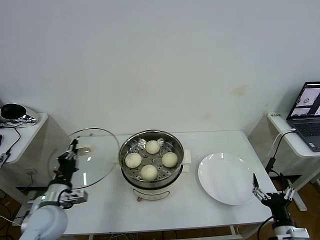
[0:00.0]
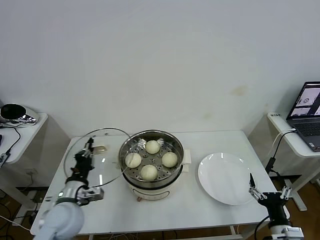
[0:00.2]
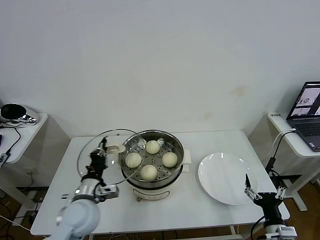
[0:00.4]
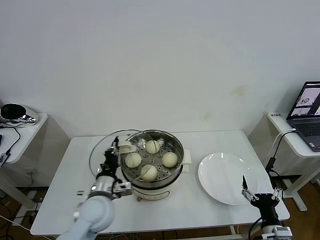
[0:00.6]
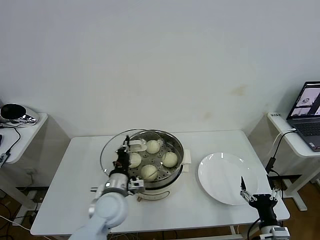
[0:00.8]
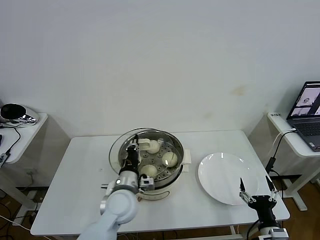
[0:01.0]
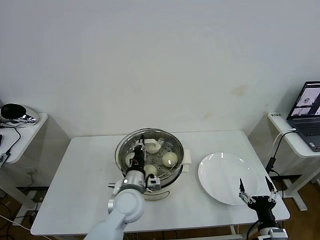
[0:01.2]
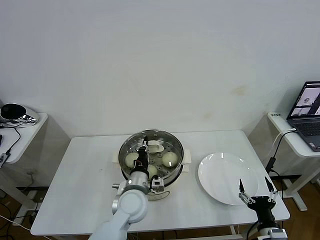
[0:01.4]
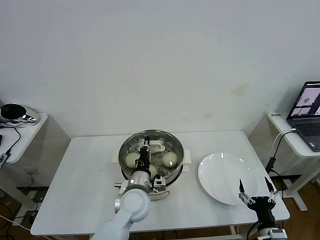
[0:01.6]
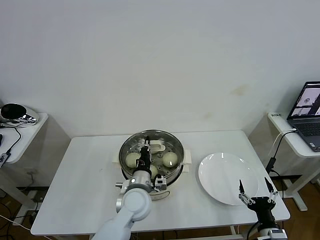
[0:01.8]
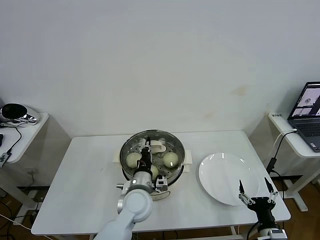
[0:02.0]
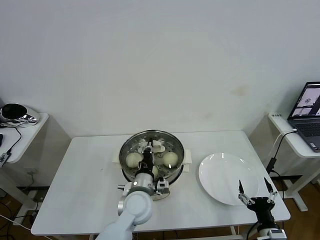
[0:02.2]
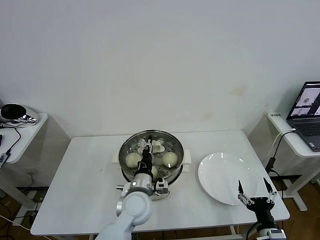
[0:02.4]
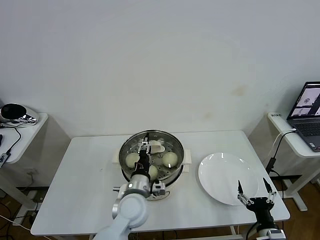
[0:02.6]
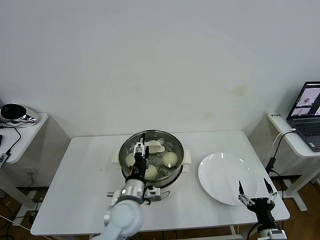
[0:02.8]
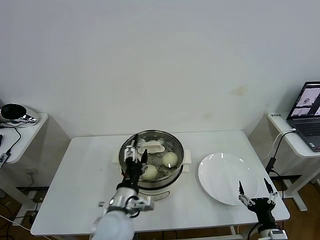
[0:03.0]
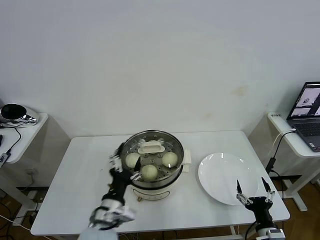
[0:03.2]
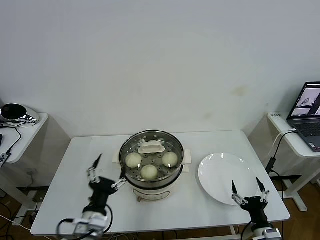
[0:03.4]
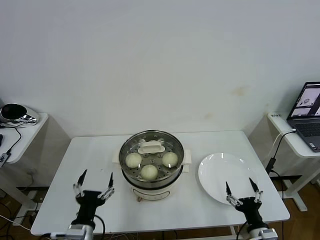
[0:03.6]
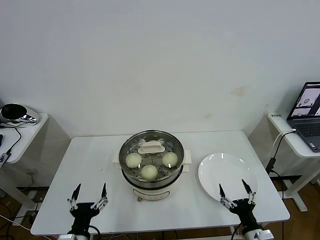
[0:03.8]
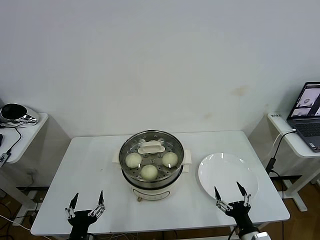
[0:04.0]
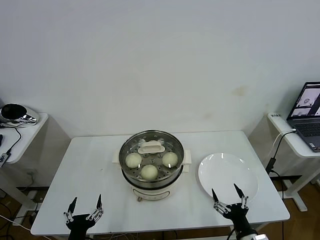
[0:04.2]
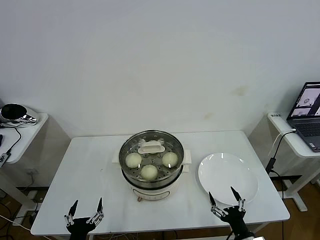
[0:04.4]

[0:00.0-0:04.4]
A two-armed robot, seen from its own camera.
Task of the whole recording: take steamed baozi put them in steamer then cover it.
Step, 0:00.0 to 0:02.6: Place the pot lid on the steamer with left gripper.
0:00.0 to 0:01.4: The left gripper goes roughly 25 cm to the right.
0:01.4 to 0:03.0: The left gripper travels backward by approximately 5 cm, and opens.
0:03.0 to 0:04.4: The right gripper moves to the left, roughly 5 cm; the left gripper goes about 20 cm backward, to the left and downward.

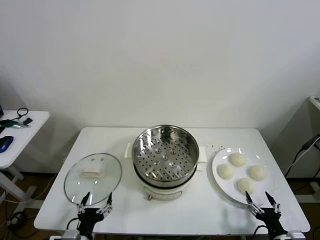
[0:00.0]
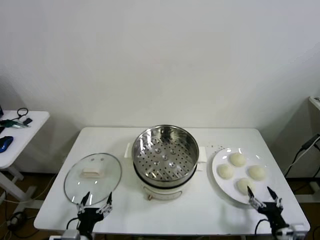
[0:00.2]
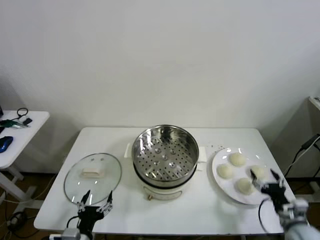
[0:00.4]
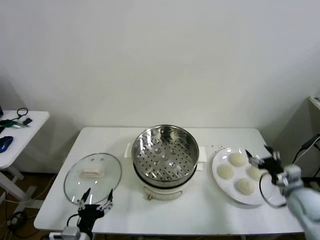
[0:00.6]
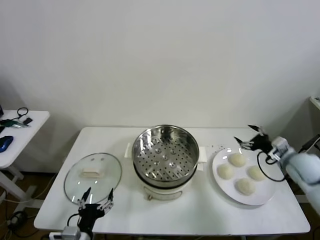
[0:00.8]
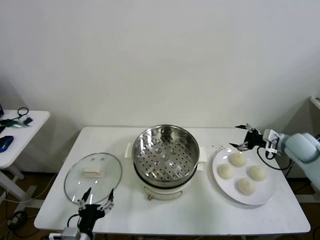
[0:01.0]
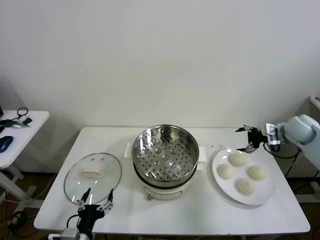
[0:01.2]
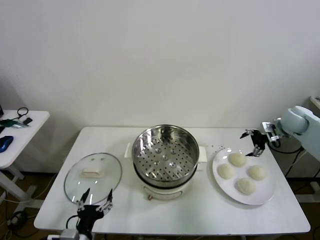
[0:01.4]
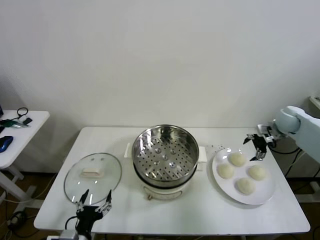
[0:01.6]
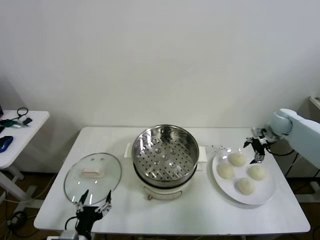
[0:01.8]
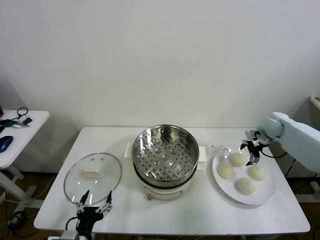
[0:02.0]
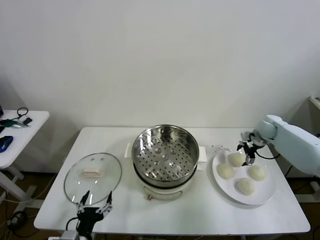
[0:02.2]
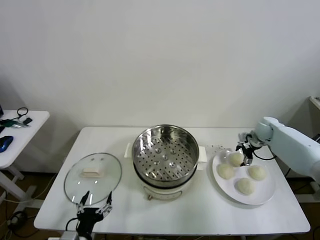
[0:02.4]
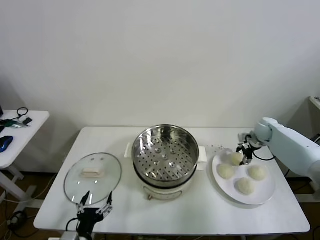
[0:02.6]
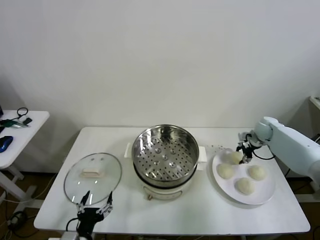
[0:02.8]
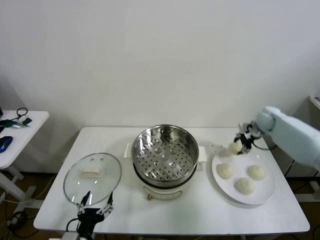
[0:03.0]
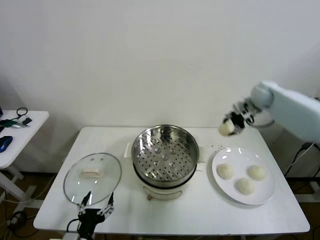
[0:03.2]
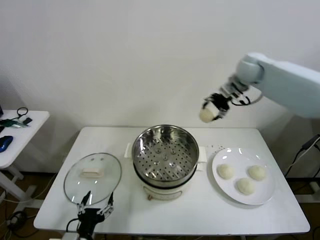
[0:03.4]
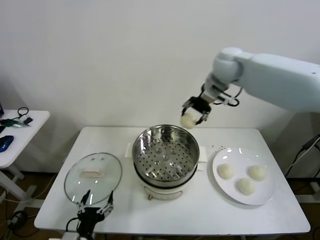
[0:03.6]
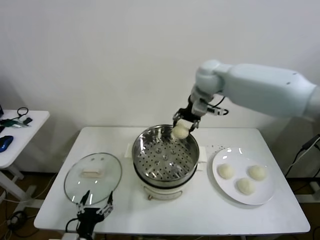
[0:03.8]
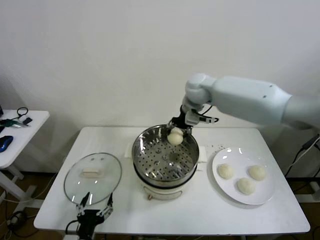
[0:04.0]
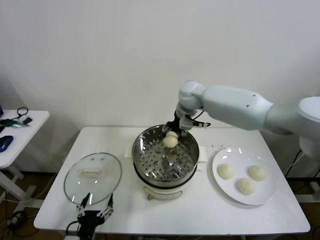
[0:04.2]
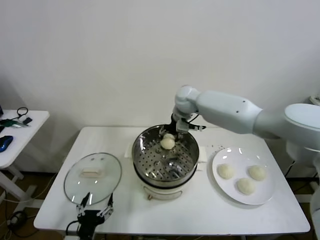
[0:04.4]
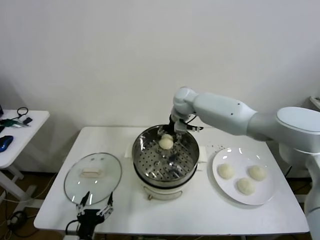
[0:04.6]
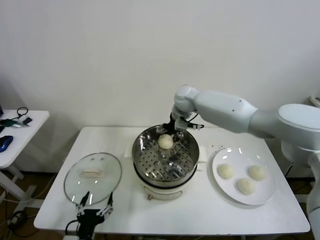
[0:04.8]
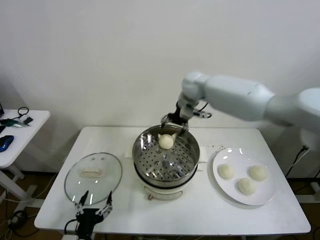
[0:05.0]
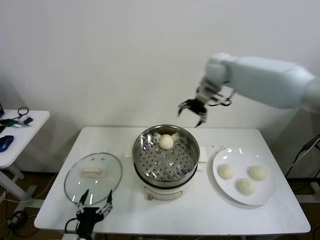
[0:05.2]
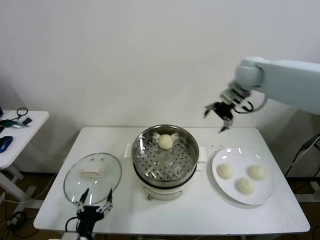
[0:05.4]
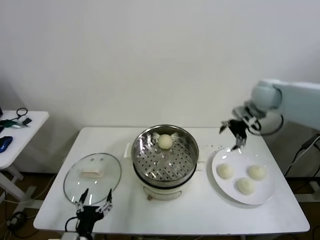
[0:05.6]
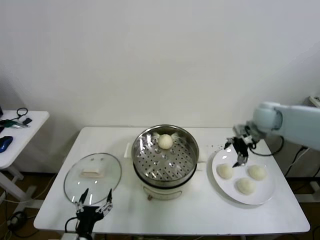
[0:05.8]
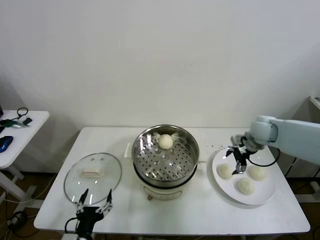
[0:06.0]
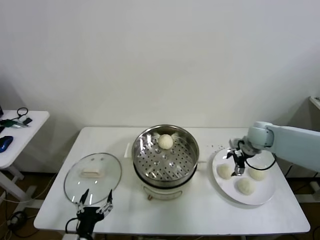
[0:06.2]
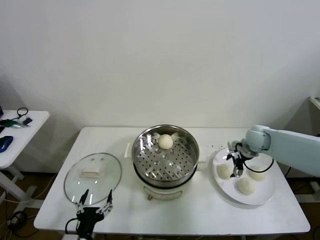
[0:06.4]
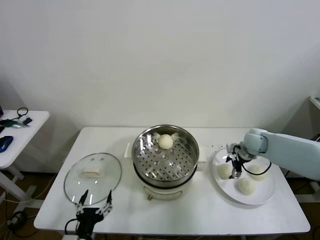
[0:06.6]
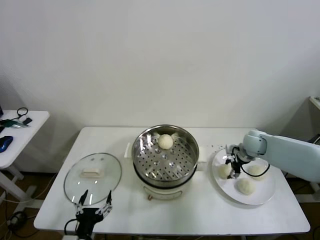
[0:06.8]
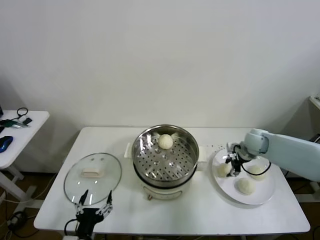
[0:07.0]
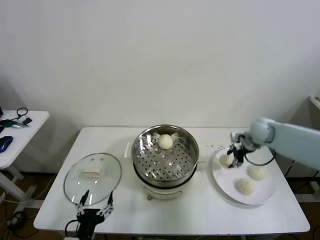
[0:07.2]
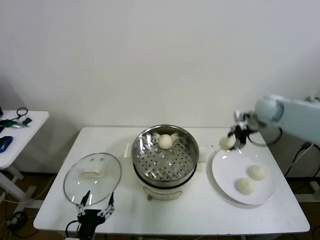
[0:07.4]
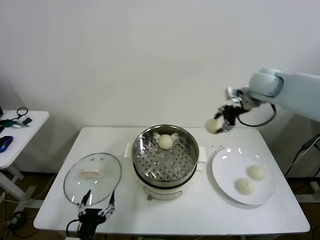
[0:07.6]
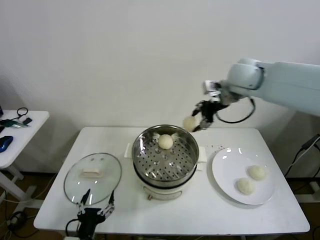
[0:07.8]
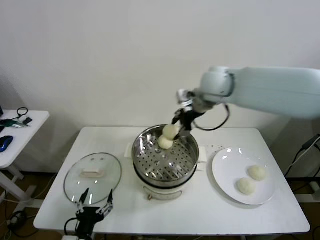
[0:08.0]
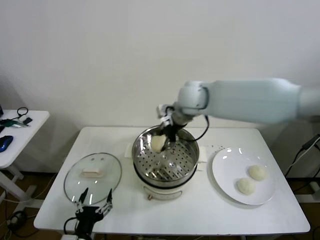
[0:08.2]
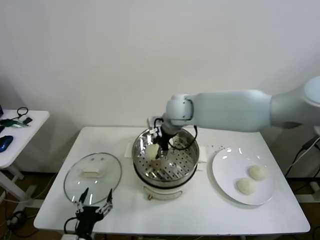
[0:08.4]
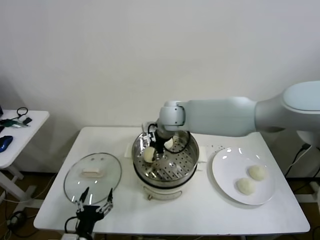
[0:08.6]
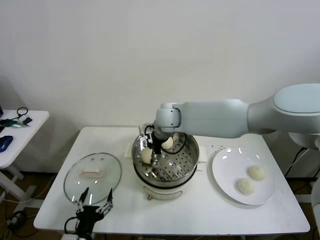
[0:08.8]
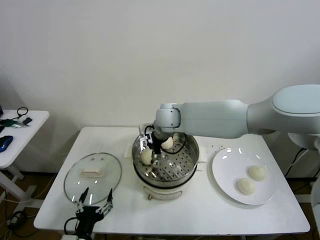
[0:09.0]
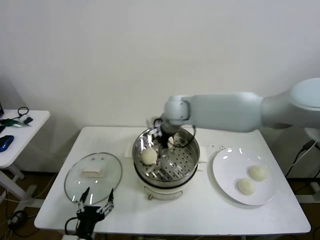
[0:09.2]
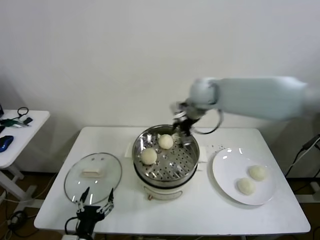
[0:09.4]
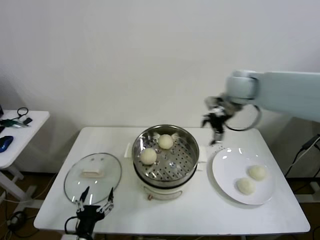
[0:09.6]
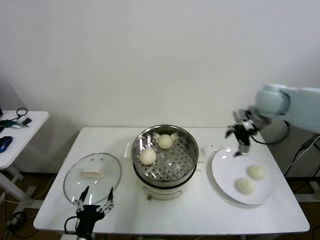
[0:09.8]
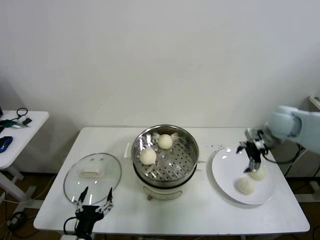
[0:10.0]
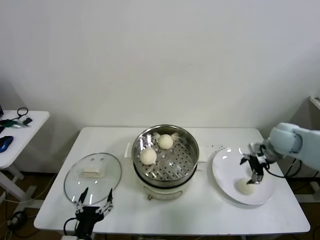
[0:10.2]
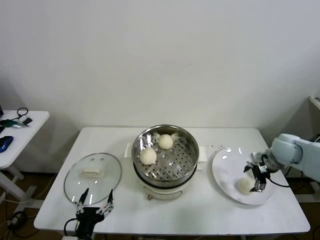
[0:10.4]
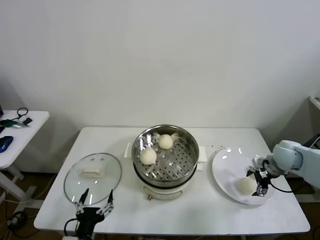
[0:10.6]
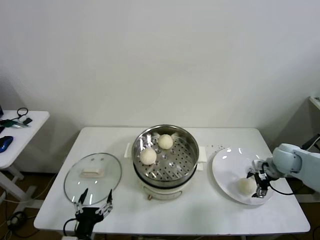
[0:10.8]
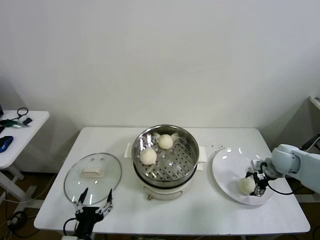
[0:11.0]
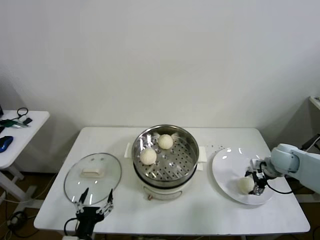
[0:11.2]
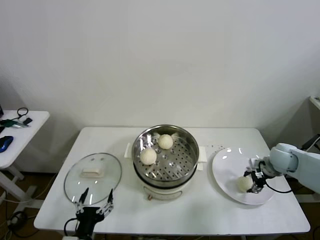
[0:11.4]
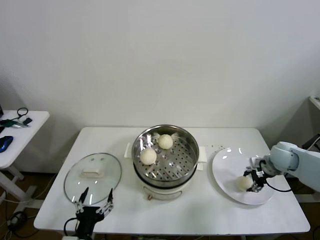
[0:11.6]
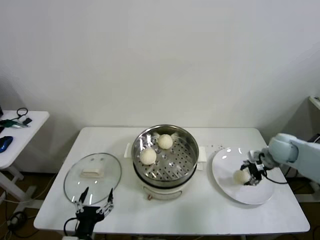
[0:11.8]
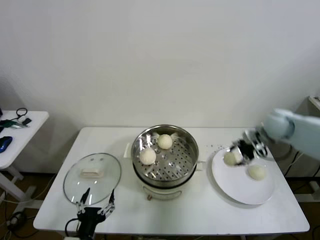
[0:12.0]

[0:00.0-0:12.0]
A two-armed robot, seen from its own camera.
Task of the whole recording: take steamed baozi put them in steamer then cover it.
Step, 0:00.0 to 0:02.8: Grasp the baozi in the plate with right gripper.
Step, 0:03.0 to 0:04.8: Place the baozi on the steamer with right gripper.
Step, 0:05.0 to 0:07.0: Grasp the baozi in the plate with right gripper.
Step, 0:07.2 to 0:09.0: Place the baozi on the steamer with right gripper.
Step, 0:09.2 to 0:11.6: Grasp the baozi in the plate with right gripper.
0:01.6 to 0:03.0: The right gripper goes roughly 10 cm to the left and forward, reaches about 10 cm downward, then returns, and closes its fingers.
0:03.0 to 0:04.4: The right gripper travels to the left by about 30 cm.
0:04.4 to 0:06.0: The right gripper travels to the right by approximately 25 cm, and opens.
0:06.0 to 0:07.6: The right gripper goes roughly 20 cm upward, and closes up.
0:07.6 to 0:09.0: The right gripper is displaced to the left and downward by about 30 cm, and opens.
0:09.0 to 0:10.4: The right gripper is displaced to the right by some 40 cm.
0:10.4 to 0:12.0: The right gripper goes some 15 cm upward, forward and to the left, and closes its fingers.

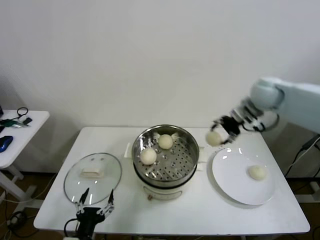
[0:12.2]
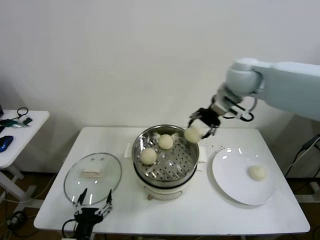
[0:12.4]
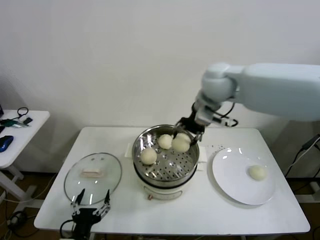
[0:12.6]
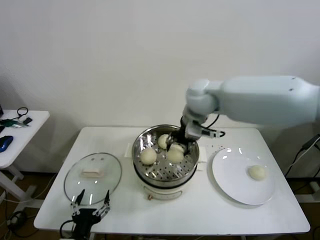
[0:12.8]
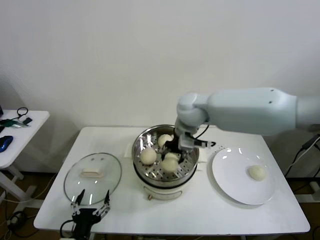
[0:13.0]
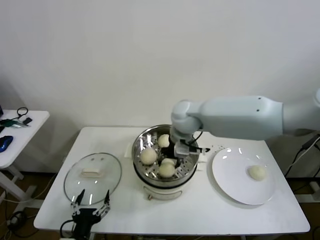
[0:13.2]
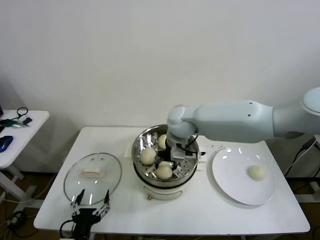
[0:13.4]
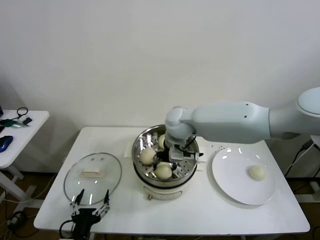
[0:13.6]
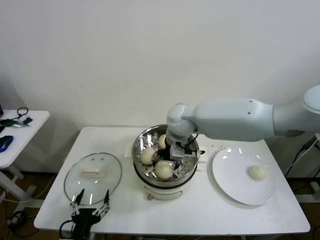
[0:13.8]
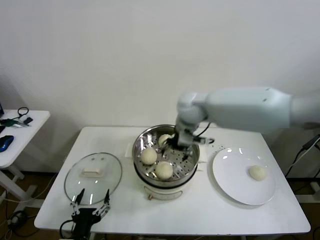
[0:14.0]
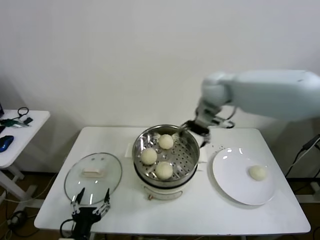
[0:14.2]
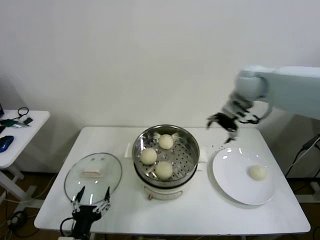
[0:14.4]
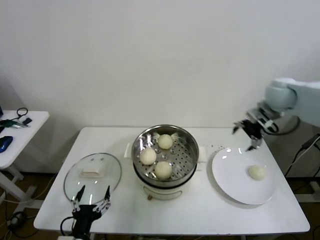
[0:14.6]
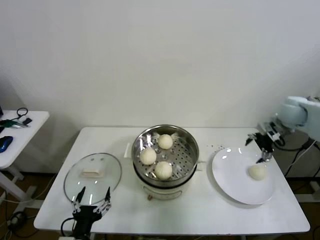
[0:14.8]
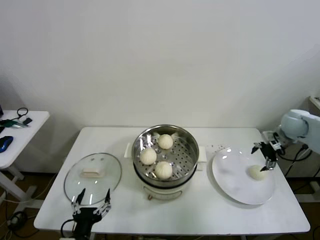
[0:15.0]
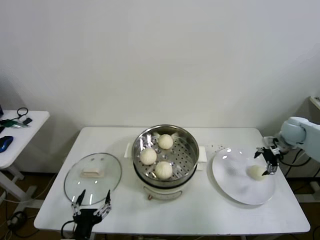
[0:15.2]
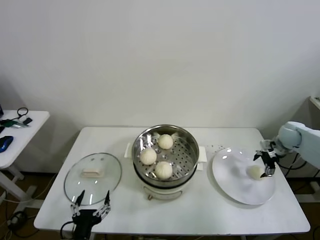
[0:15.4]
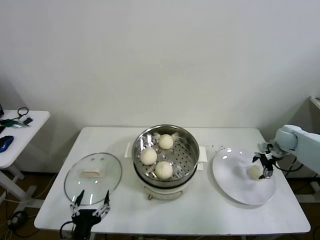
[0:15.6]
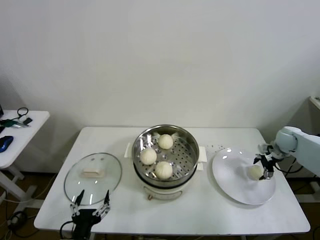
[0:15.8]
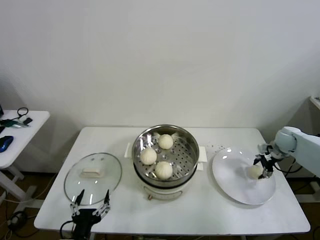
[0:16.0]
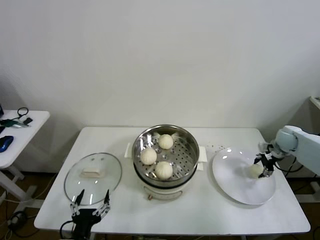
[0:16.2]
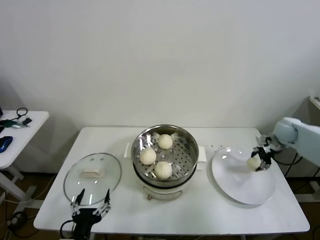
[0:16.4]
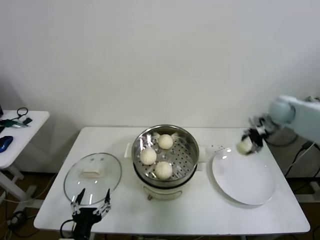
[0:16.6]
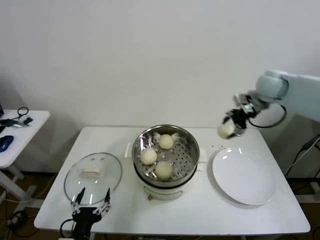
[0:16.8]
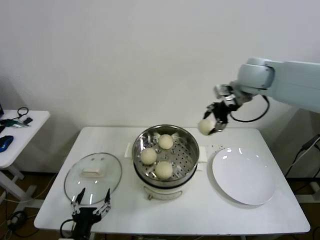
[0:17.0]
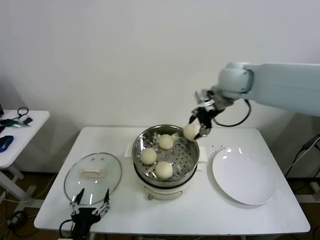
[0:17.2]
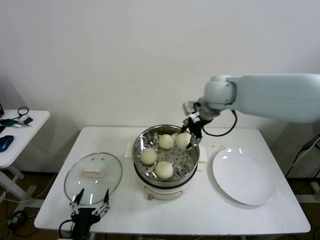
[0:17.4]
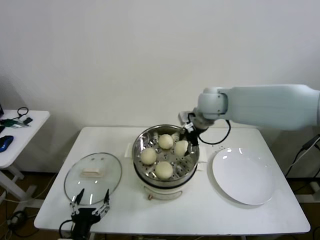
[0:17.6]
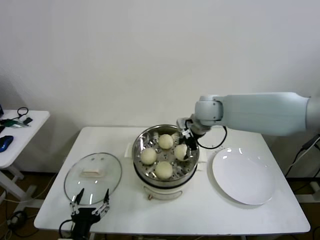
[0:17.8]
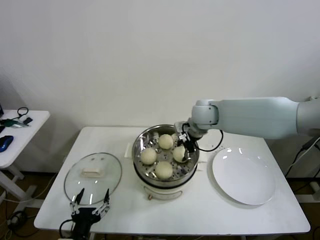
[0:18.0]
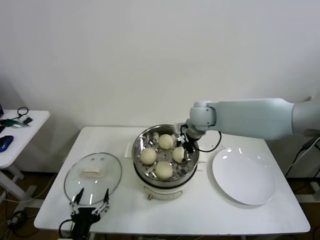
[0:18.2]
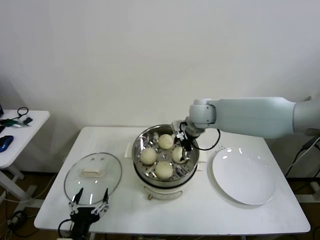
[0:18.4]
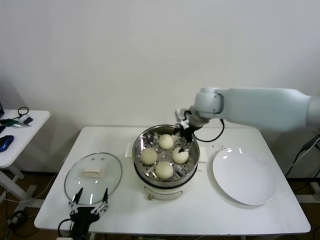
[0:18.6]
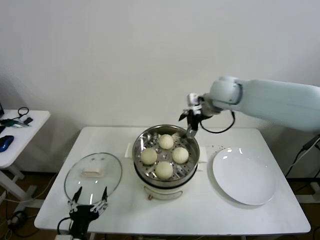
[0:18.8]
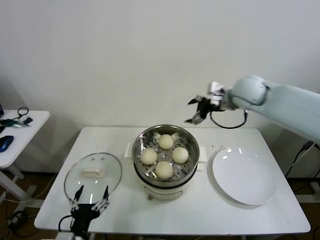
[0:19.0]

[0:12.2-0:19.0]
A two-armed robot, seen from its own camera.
Task of the whole recording: take steamed baozi put them in steamer then cover it.
Step, 0:12.2 to 0:13.8: Place the baozi on the steamer with right gripper.
Step, 0:14.0 to 0:16.2: Grasp the baozi in the plate with right gripper.
Step, 0:16.4 to 0:18.4: Place the baozi on the steamer with right gripper.
0:12.2 to 0:13.6: The right gripper moves to the left and downward, roughly 25 cm.
0:13.6 to 0:15.0: The right gripper travels to the right by roughly 40 cm, and opens its fingers.
0:15.0 to 0:16.2: The right gripper is displaced downward by roughly 10 cm, and closes its fingers.
0:16.2 to 0:17.6: The right gripper travels to the left and upward by about 40 cm.
0:17.6 to 0:19.0: The right gripper is displaced to the right by about 10 cm, and opens its fingers.
